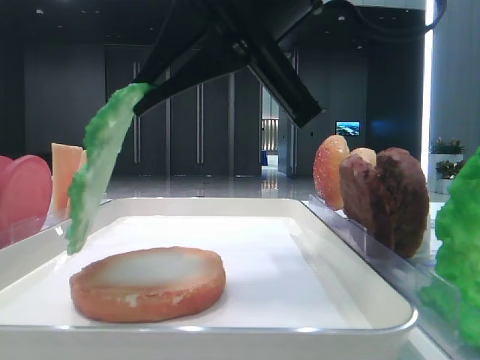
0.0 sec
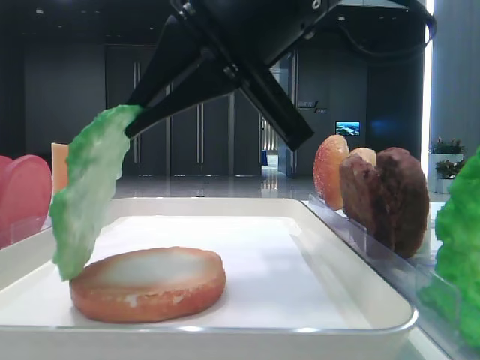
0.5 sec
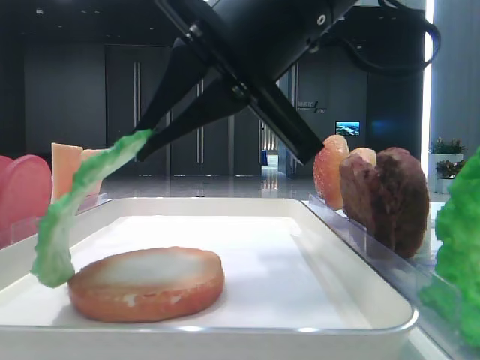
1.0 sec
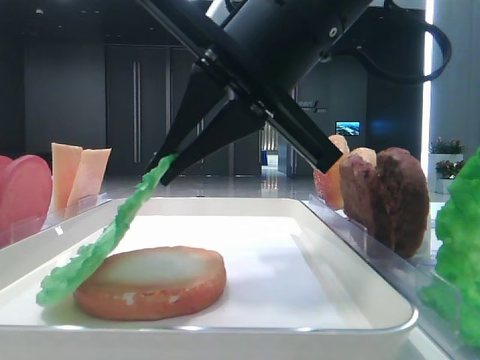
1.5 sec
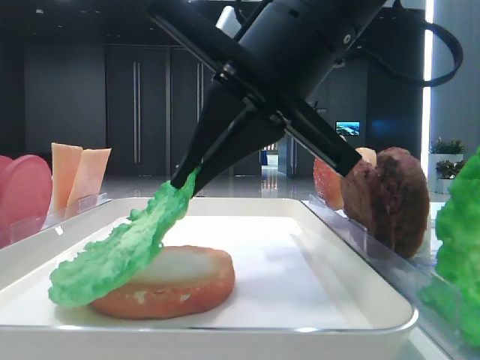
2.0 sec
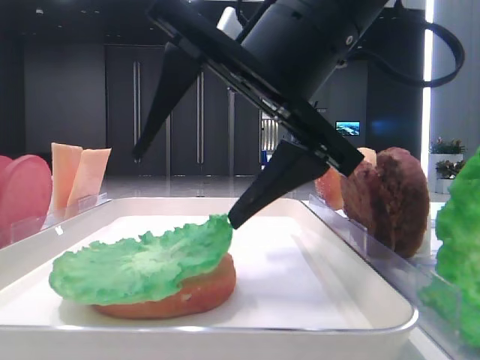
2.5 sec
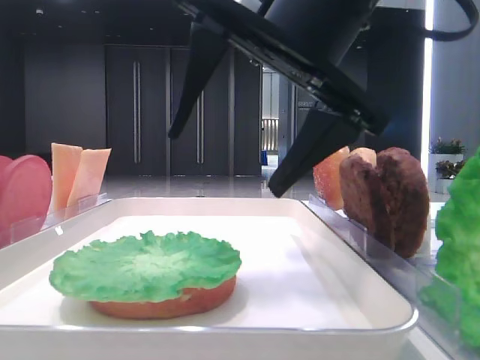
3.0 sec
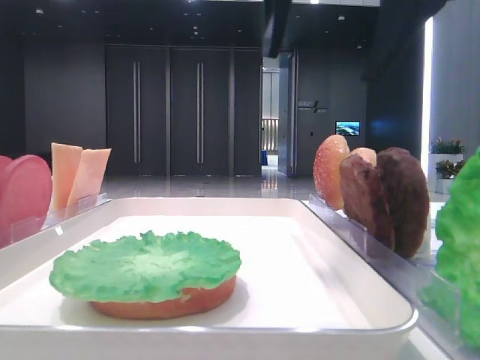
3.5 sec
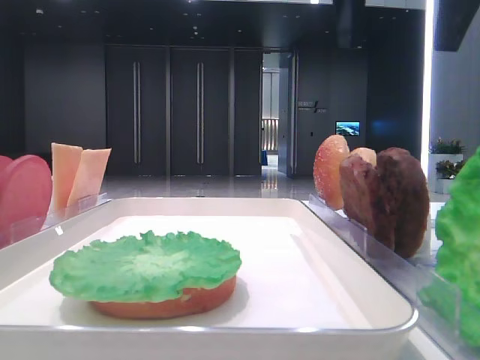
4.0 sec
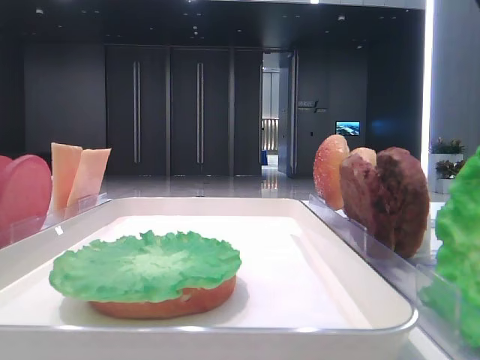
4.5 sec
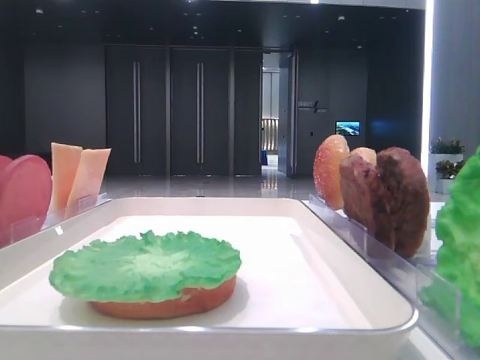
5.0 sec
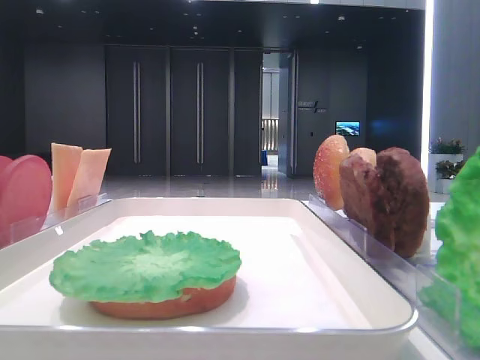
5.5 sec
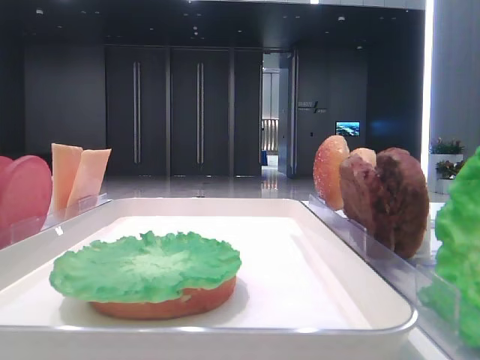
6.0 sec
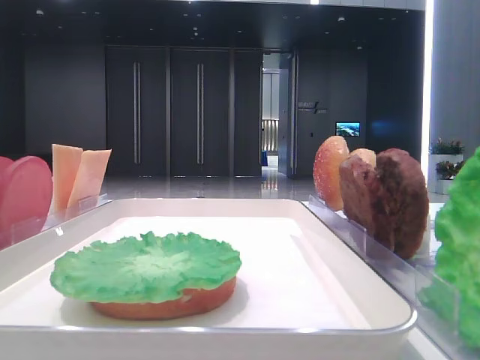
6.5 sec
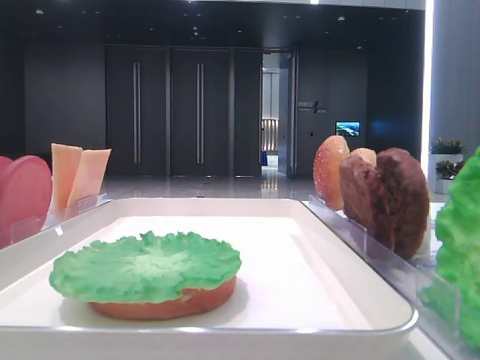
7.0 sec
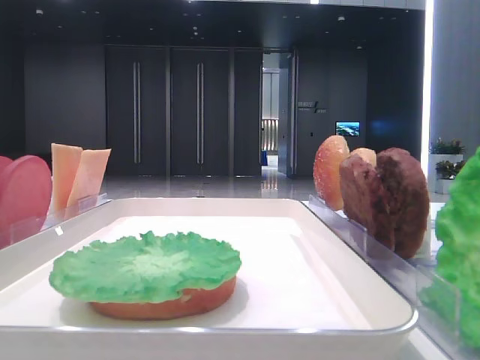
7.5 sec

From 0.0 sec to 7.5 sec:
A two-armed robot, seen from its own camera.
Step, from 0.0 sec to 2.5 sec: Place the lettuce leaf on the bottom bread with the right hand.
From 0.0 sec to 2.0 sec: The grippers stay close to where they were, moving slightly.
From 2.0 sec to 4.0 sec: The right gripper goes about 15 cm upward and to the right, and opens up.
From 4.0 sec to 5.5 sec: The right gripper shifts roughly 20 cm to the right.

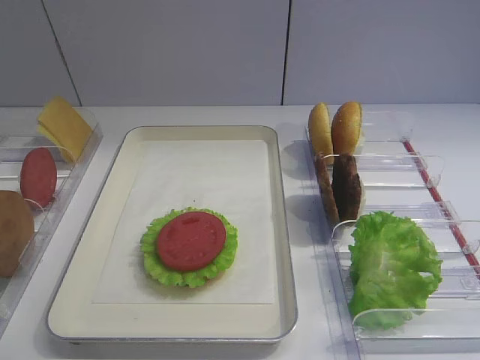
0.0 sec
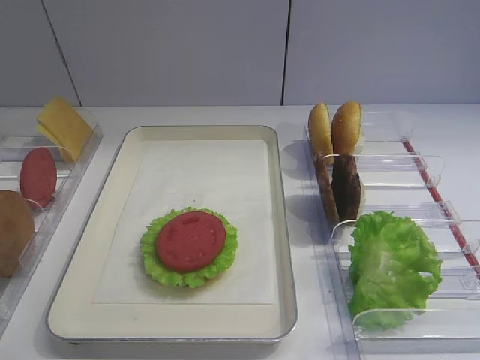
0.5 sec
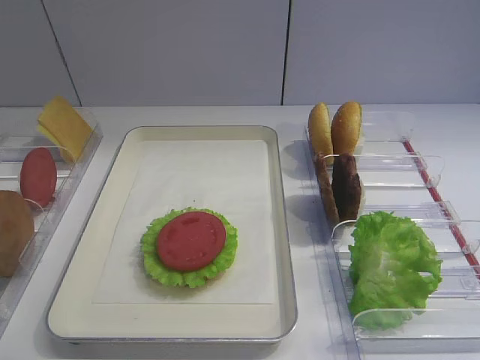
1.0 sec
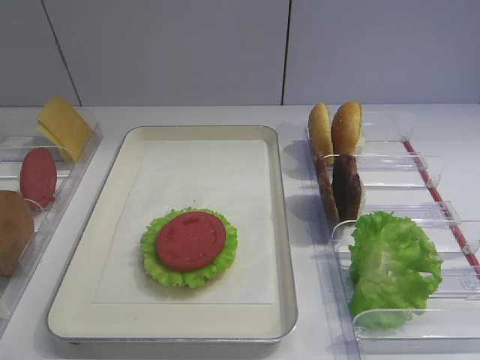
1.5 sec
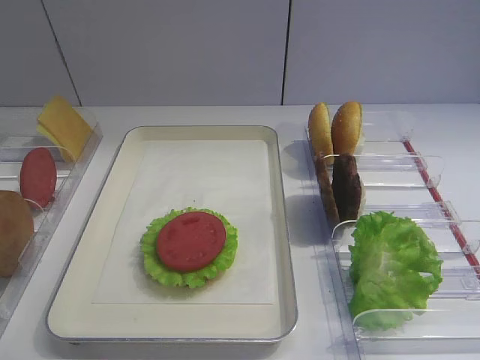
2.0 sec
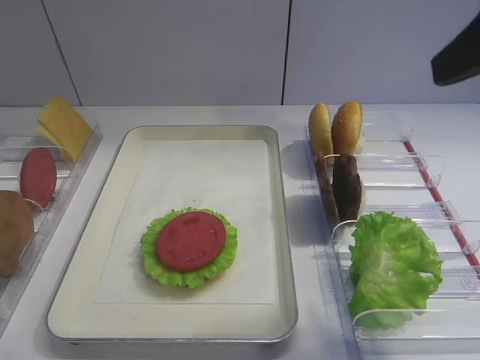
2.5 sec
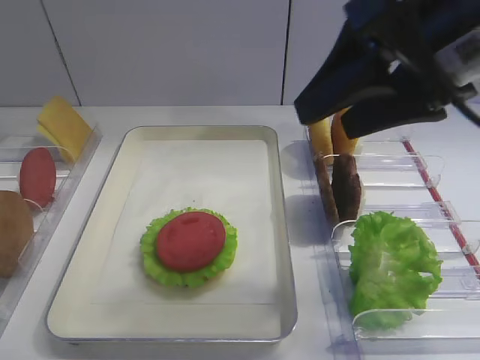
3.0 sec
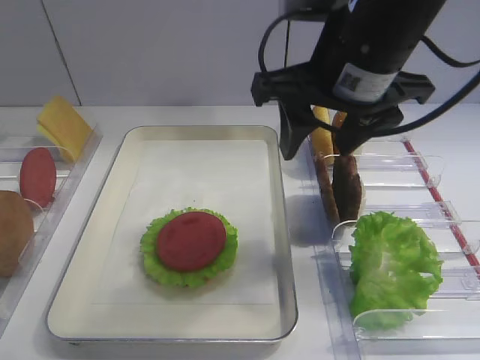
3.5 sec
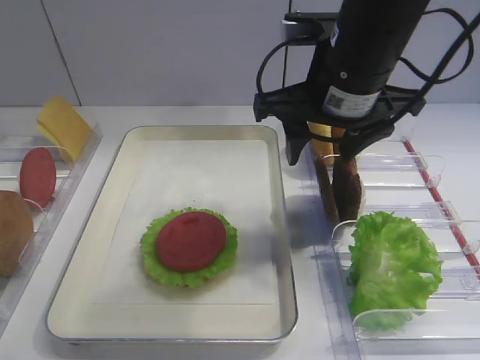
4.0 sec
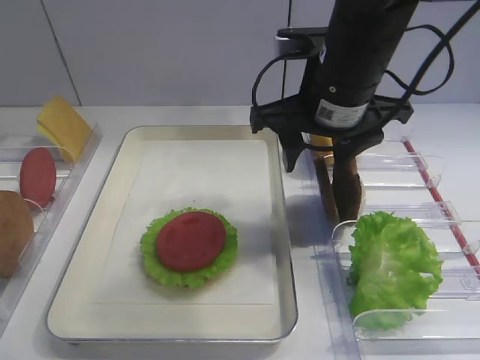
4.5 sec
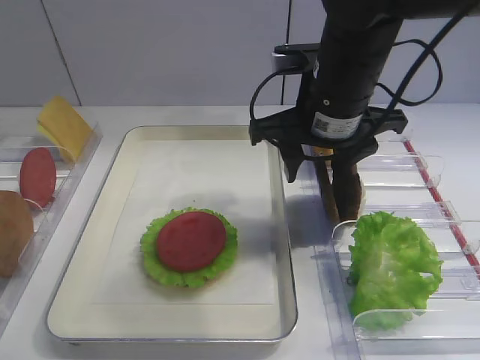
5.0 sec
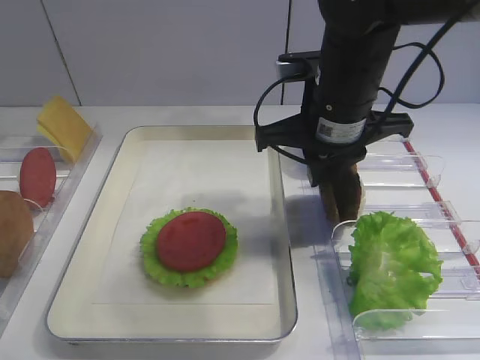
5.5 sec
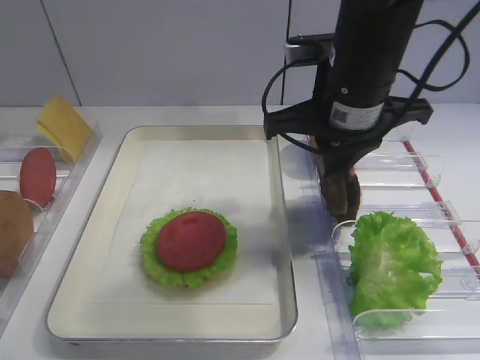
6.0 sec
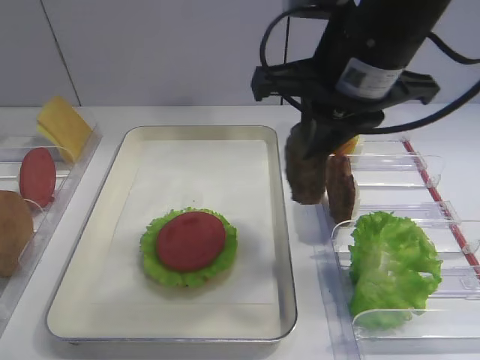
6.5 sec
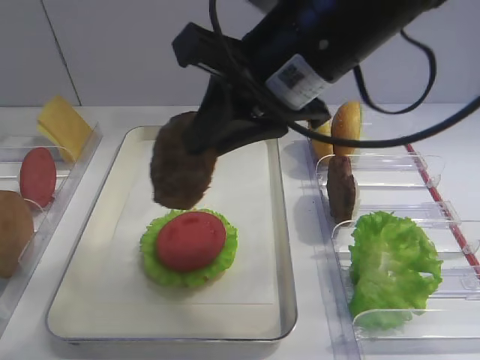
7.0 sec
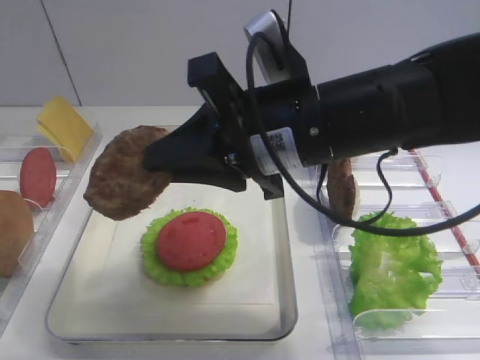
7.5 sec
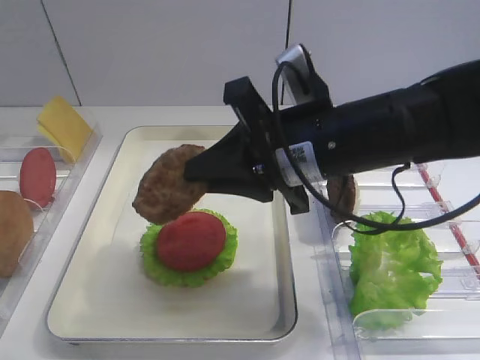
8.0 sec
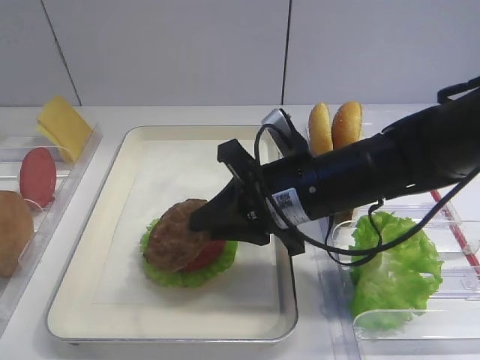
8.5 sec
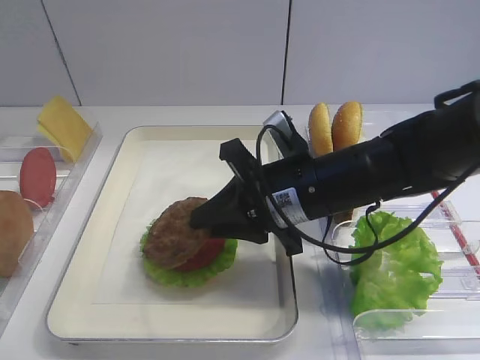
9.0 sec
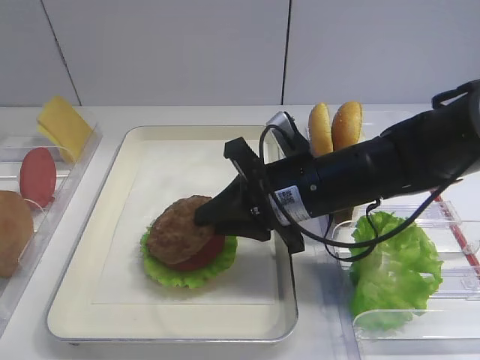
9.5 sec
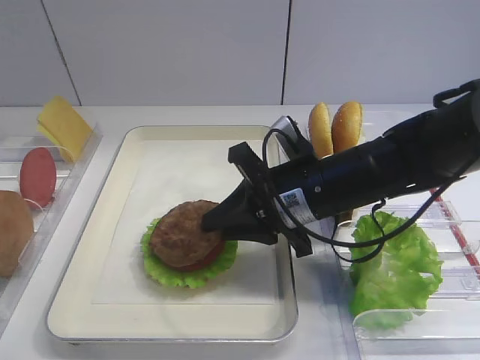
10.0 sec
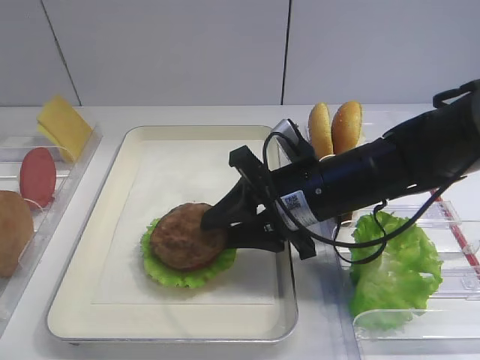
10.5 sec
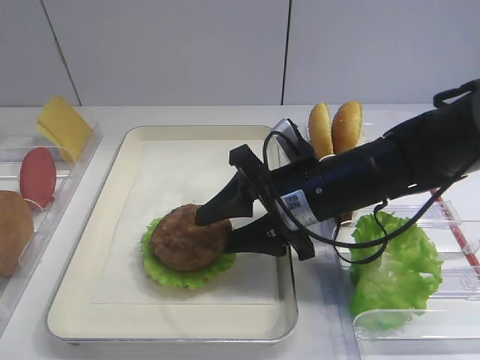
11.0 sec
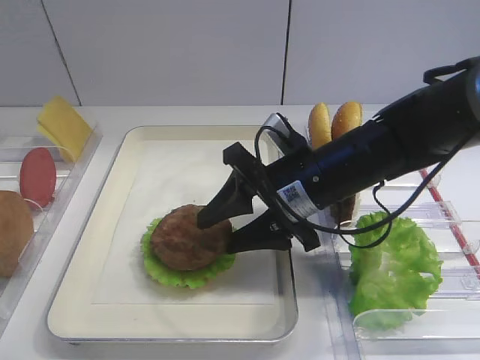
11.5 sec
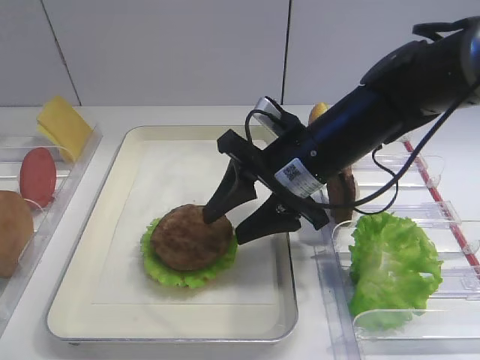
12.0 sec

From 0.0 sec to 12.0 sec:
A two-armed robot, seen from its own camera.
Step, from 0.0 sec to 6.0 sec: Pick up the cutlet with the right gripper.
From 2.0 sec to 4.0 sec: The right gripper shifts approximately 25 cm forward and to the left.
From 4.0 sec to 6.0 sec: The right gripper closes its fingers.
From 6.0 sec to 8.0 sec: The right gripper heads backward, covering about 5 cm, and travels upward and back again, approximately 5 cm each way.
From 8.0 sec to 10.0 sec: The right gripper goes roughly 10 cm downward.
From 10.0 sec to 12.0 sec: The right gripper opens its fingers.

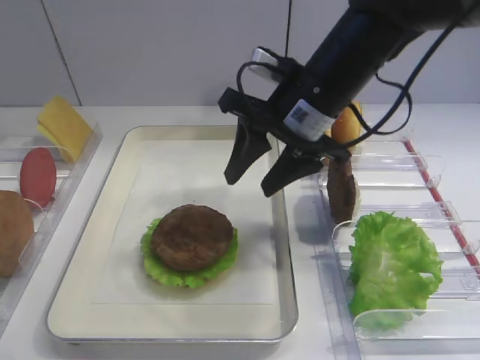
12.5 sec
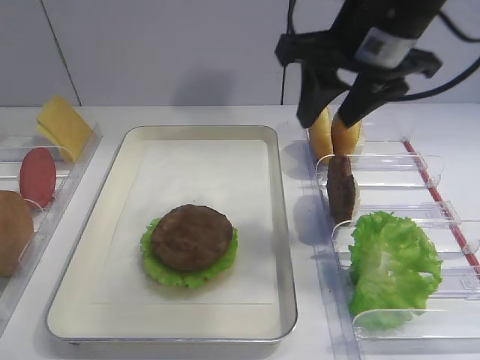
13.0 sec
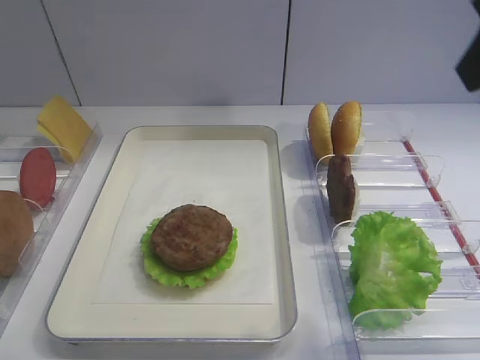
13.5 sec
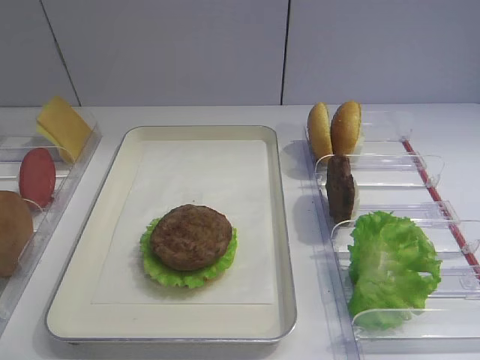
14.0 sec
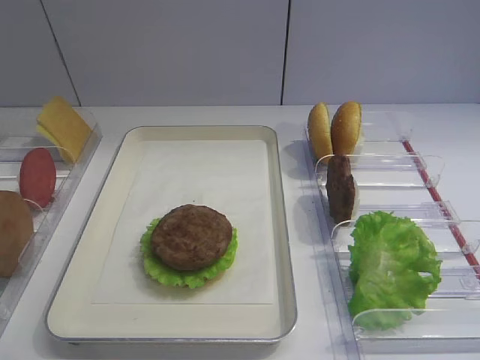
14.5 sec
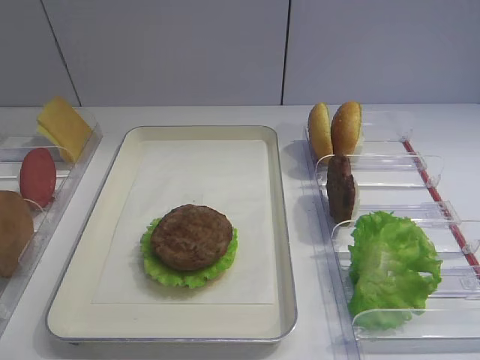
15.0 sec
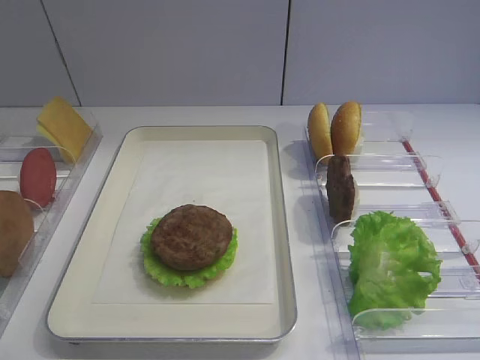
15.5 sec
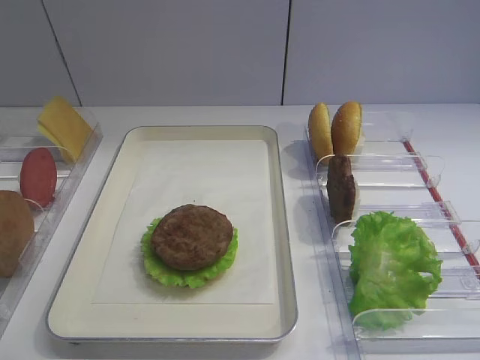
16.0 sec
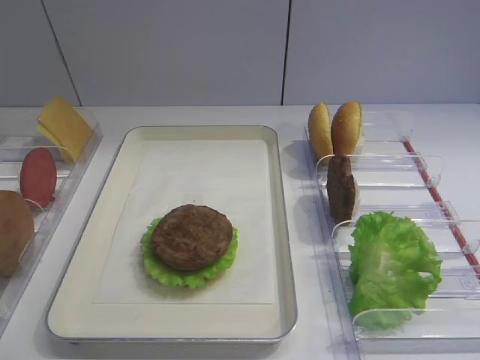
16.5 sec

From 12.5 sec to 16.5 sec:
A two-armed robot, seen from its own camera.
From 12.5 sec to 14.5 sec: The right gripper travels backward and to the right by approximately 40 cm.
